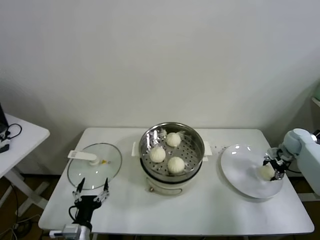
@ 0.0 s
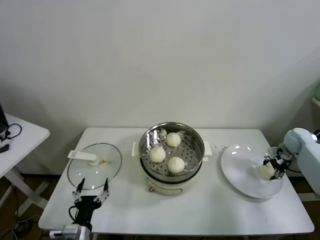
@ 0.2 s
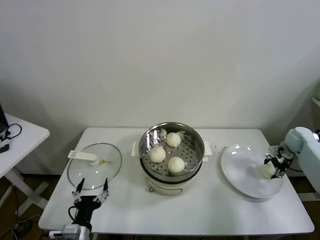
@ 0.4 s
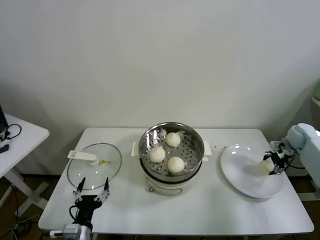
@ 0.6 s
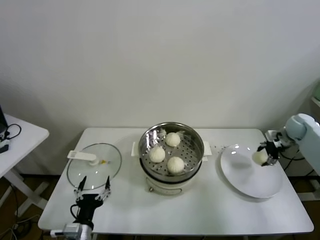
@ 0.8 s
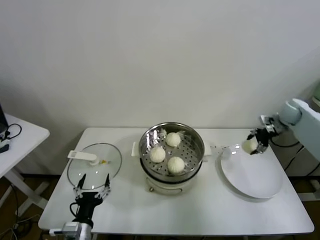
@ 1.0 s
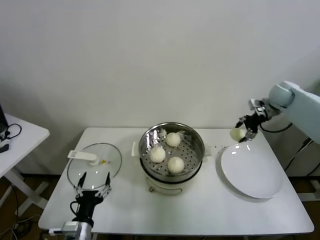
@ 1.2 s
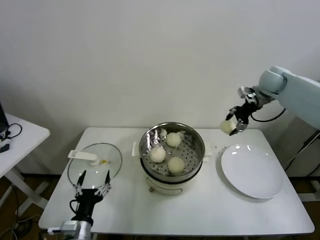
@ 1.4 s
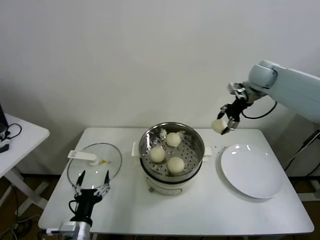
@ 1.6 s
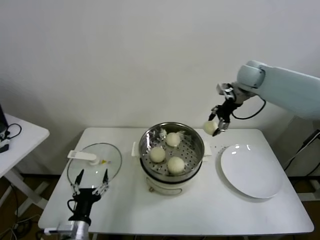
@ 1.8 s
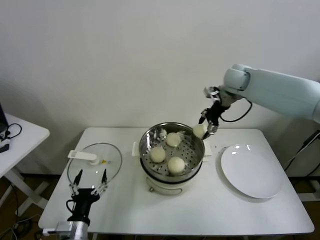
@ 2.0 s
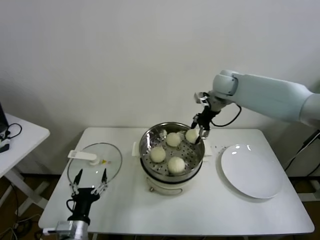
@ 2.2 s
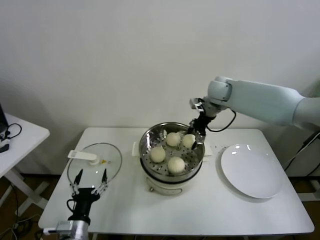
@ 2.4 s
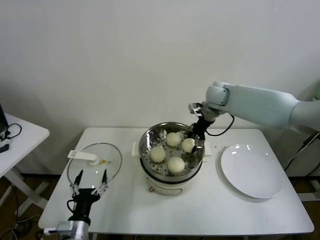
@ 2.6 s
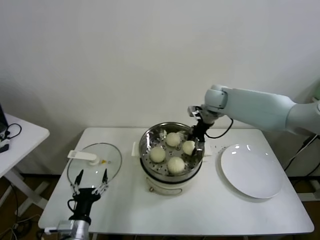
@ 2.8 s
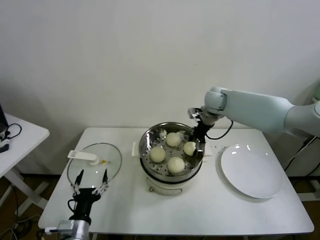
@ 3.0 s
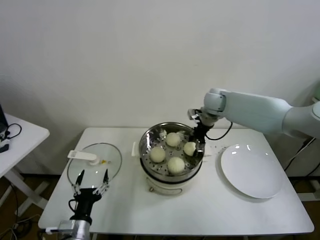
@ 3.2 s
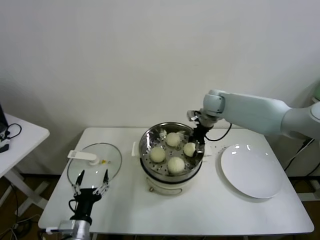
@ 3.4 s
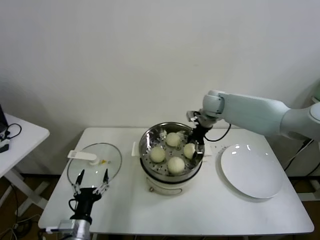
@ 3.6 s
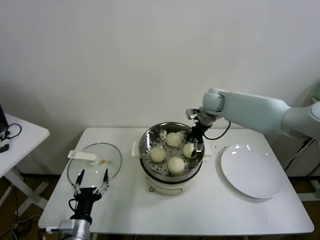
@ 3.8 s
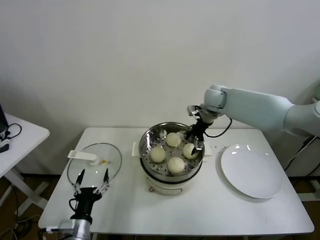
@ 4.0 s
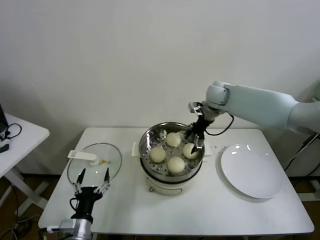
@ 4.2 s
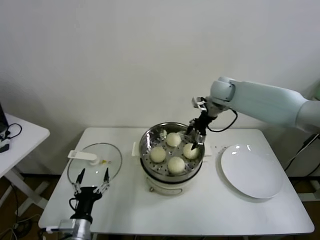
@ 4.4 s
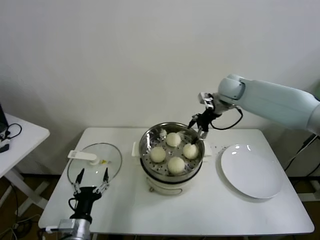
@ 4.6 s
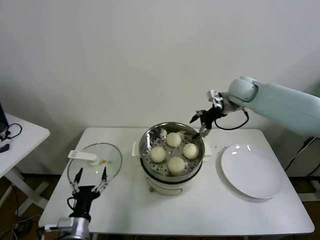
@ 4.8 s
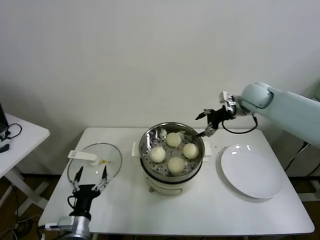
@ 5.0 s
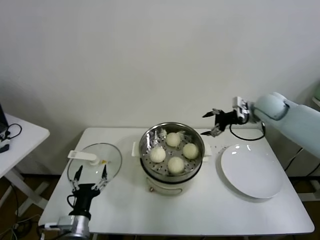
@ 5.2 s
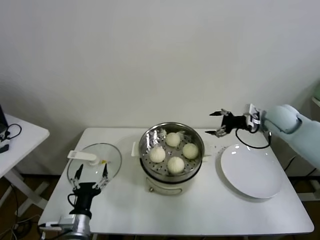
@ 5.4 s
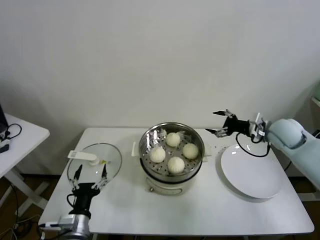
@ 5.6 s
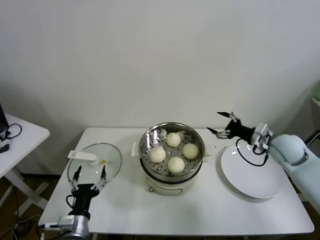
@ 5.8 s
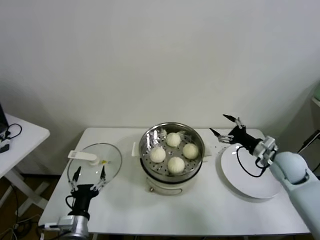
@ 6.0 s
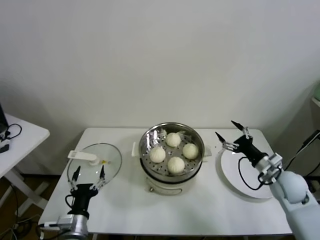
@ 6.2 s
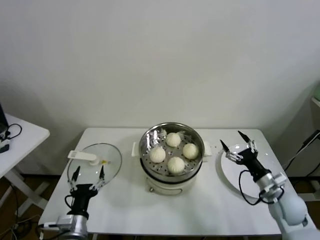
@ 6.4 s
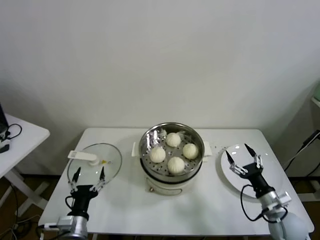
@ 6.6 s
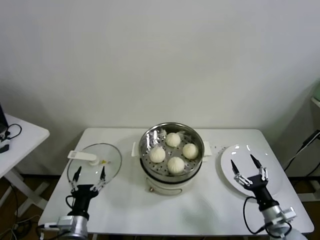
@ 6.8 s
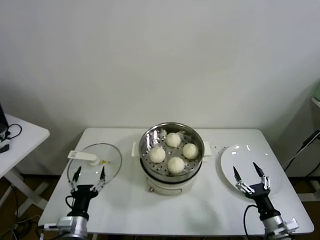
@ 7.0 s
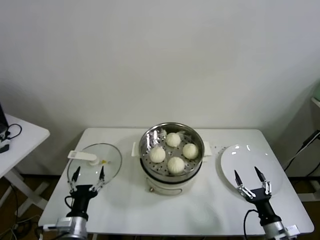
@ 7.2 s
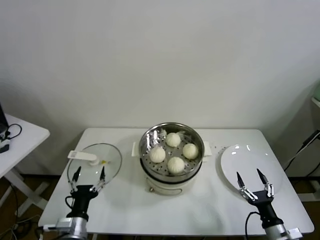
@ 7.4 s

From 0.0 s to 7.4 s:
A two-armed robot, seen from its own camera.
Task of the whole recording: take steamed baozi put them in steamer.
Step, from 0.2 s to 3.8 s: Place the baozi on the steamer with right gripper.
From 0.0 s to 1.4 s: The right gripper shifts approximately 25 cm upward and to the left, and closes up.
From 1.4 s to 3.0 s: The right gripper is displaced to the left by roughly 20 cm.
From 3.0 s to 4.4 s: The right gripper opens.
From 4.4 s to 6.0 s: The right gripper heads backward, to the right and downward, covering roughly 30 cm.
From 6.0 s to 7.4 s: The right gripper moves backward and downward, some 30 cm.
